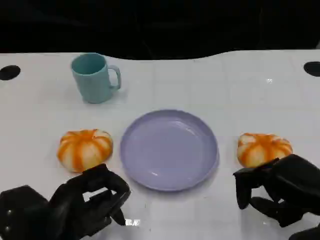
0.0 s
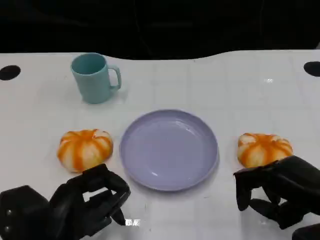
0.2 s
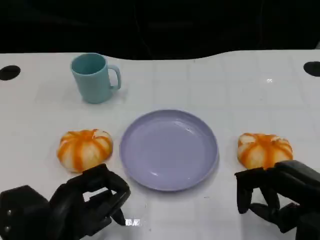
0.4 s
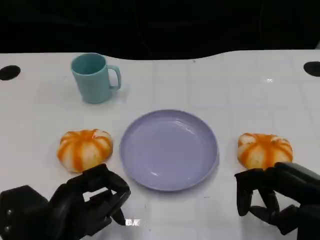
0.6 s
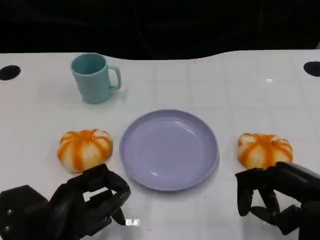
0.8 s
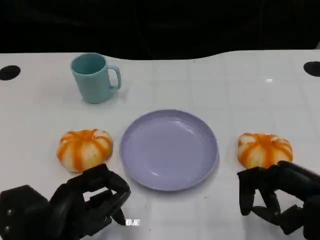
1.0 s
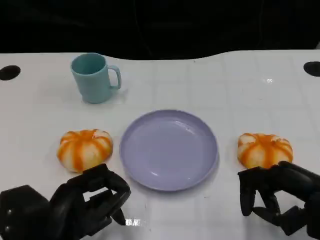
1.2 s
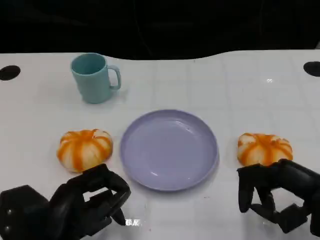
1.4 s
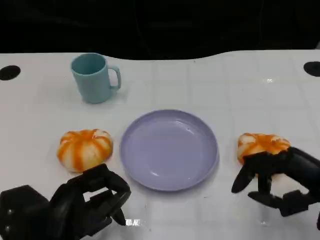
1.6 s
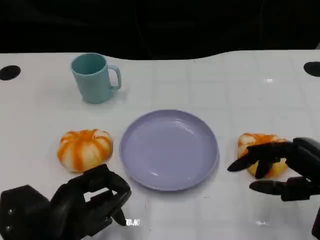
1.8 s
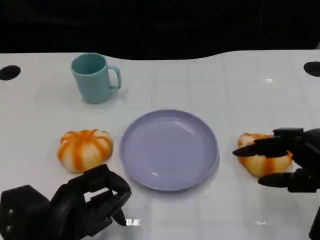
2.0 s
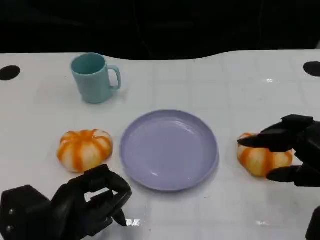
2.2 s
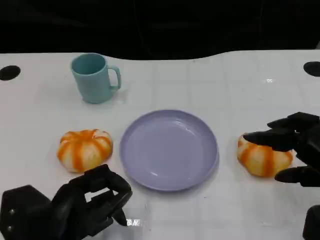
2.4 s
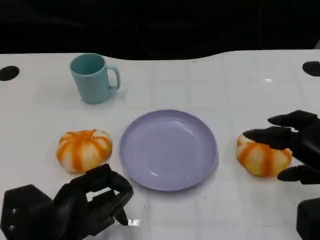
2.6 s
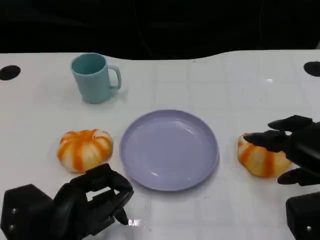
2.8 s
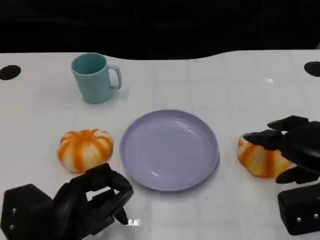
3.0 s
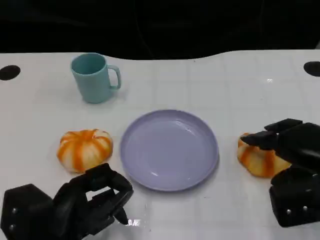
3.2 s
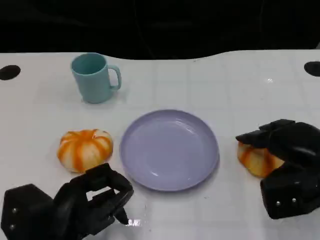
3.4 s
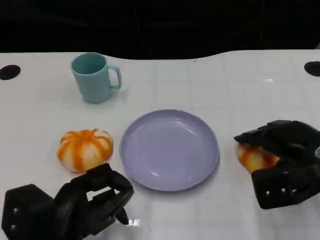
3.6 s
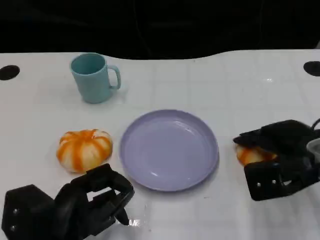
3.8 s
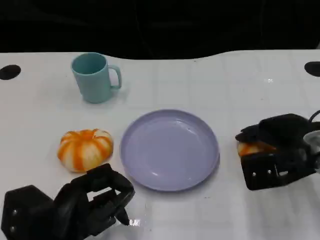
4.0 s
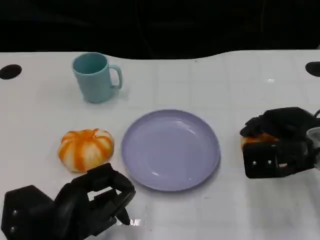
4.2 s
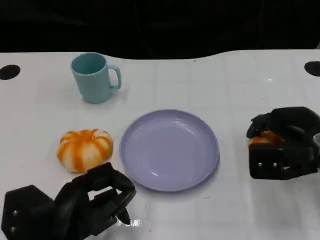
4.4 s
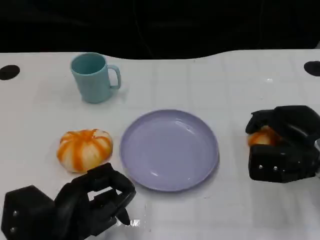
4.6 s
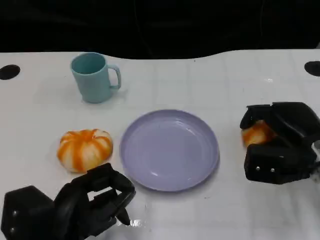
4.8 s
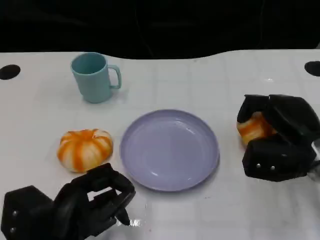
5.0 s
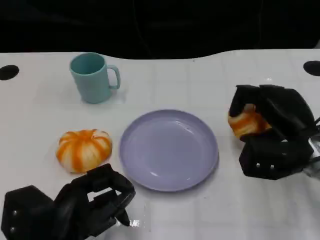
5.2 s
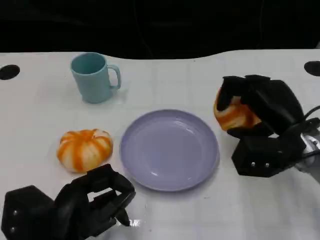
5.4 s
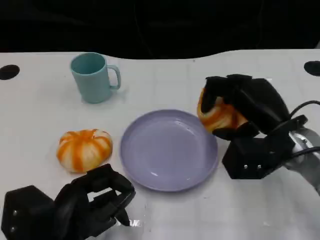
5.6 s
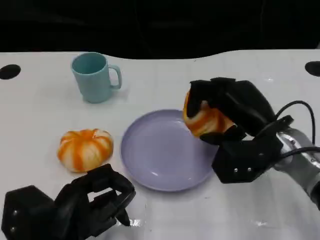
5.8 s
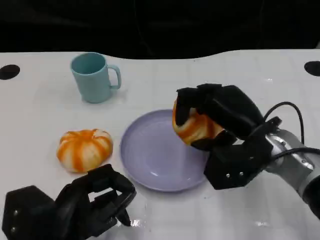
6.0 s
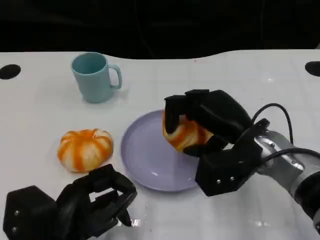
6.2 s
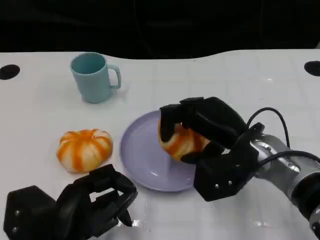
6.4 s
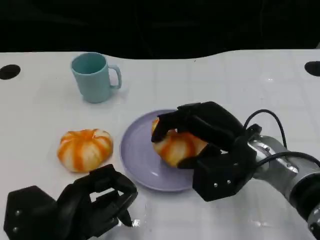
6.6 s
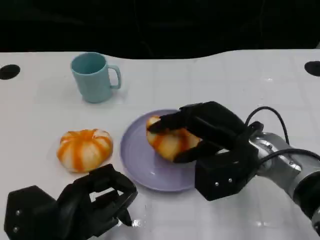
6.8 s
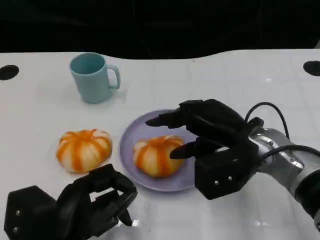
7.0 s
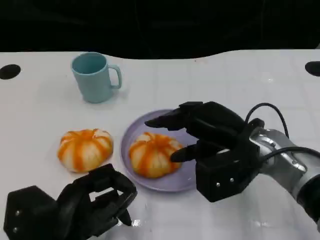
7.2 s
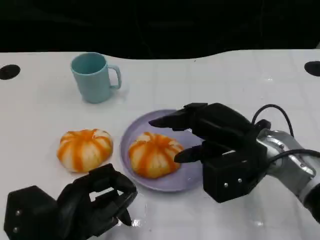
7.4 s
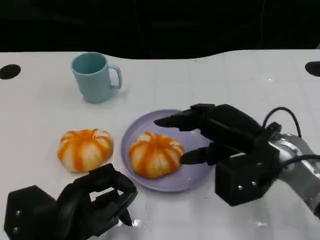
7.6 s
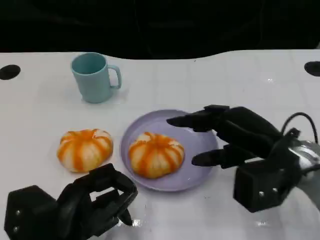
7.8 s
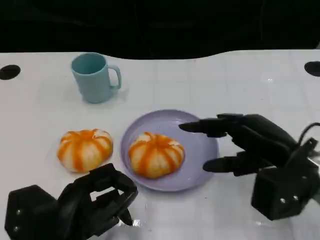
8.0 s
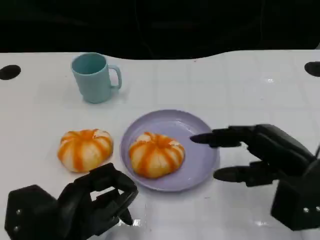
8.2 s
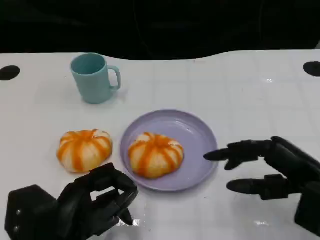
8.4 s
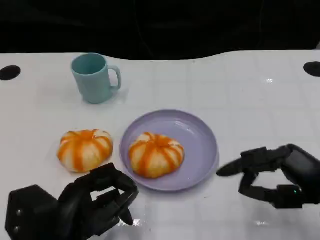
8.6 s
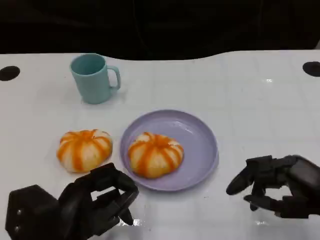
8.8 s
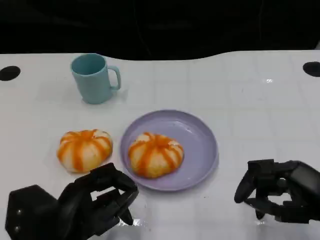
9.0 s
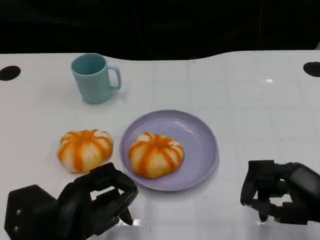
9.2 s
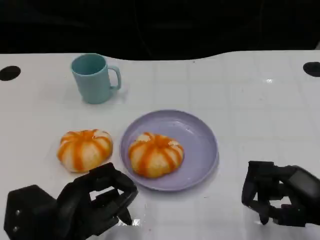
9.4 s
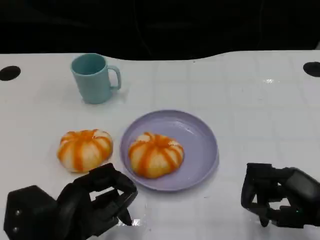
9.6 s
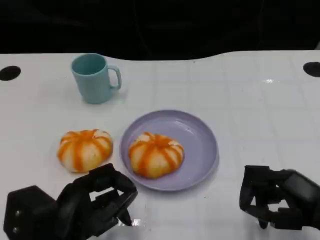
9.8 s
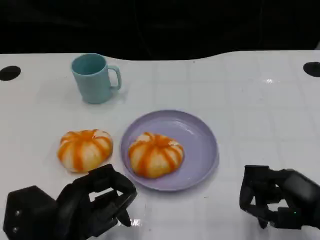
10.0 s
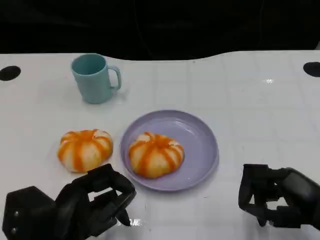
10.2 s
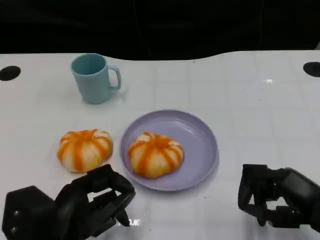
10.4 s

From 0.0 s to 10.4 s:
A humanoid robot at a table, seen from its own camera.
Task of the whole recording: Grasp the bread from the table and place it into the plate.
From 3.0 s to 4.4 s: The right hand goes approximately 5 cm forward.
From 4.4 s to 6.0 s: The right hand goes roughly 10 cm to the left.
From 6.0 s to 7.4 s: There are only small adjustments of the hands.
From 7.4 s to 9.0 s: The right hand heads to the right and backward, covering roughly 15 cm.
From 9.0 s to 10.4 s: The hands move only a little.

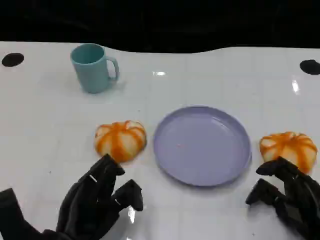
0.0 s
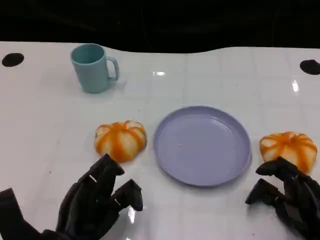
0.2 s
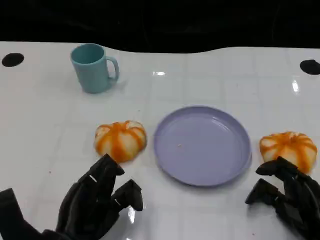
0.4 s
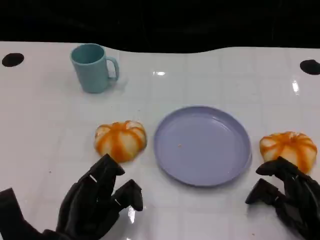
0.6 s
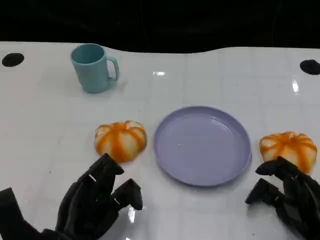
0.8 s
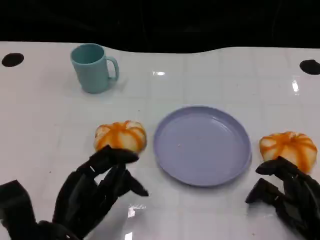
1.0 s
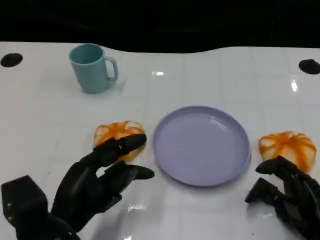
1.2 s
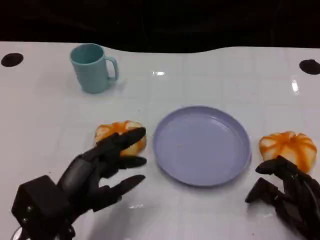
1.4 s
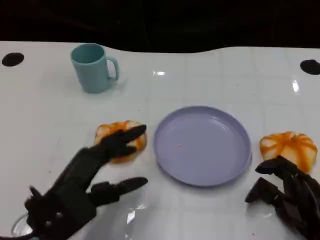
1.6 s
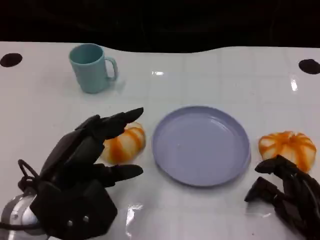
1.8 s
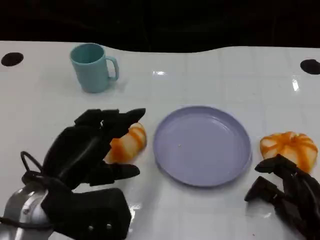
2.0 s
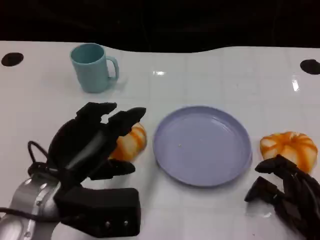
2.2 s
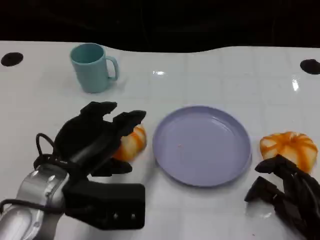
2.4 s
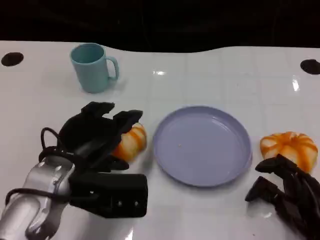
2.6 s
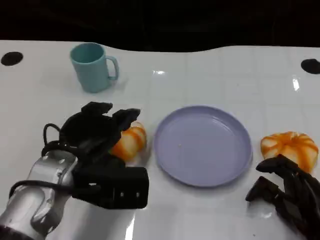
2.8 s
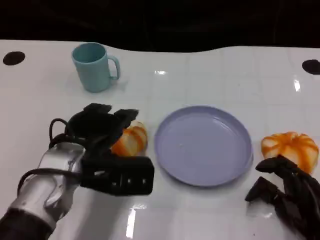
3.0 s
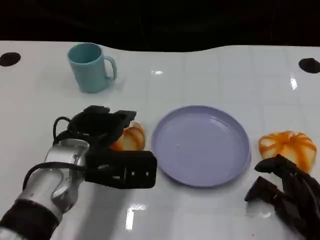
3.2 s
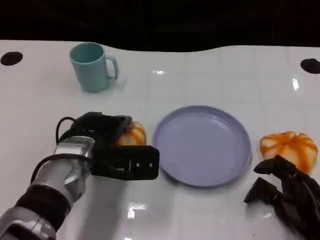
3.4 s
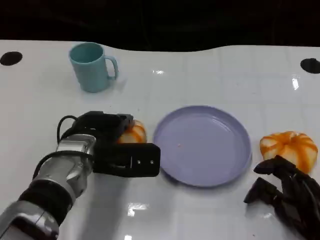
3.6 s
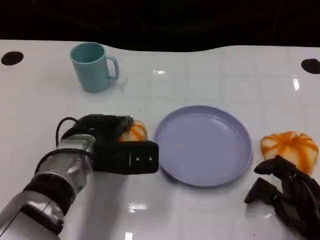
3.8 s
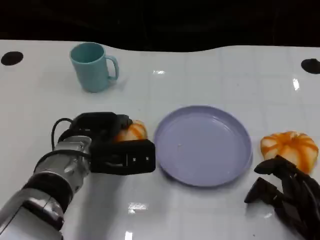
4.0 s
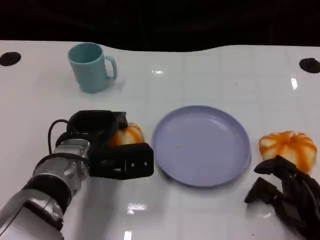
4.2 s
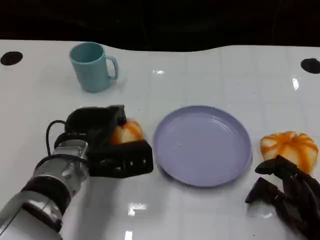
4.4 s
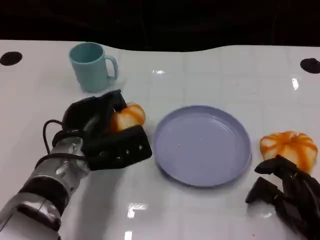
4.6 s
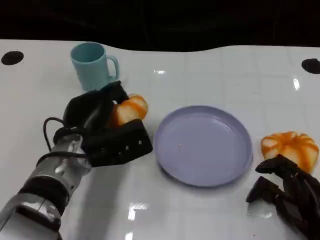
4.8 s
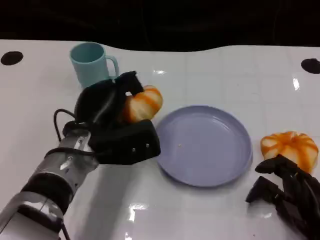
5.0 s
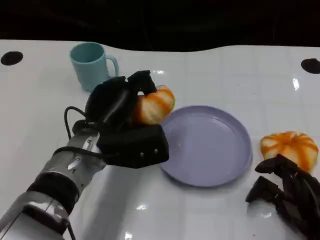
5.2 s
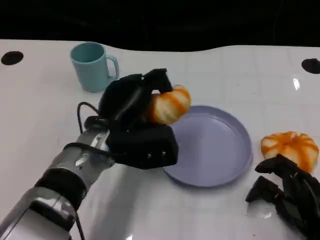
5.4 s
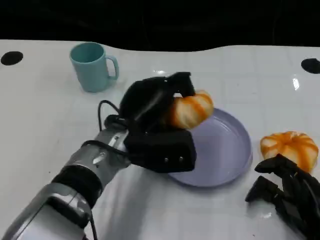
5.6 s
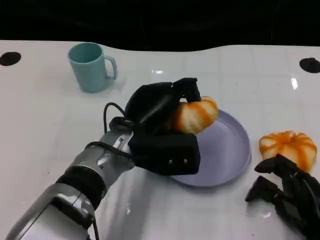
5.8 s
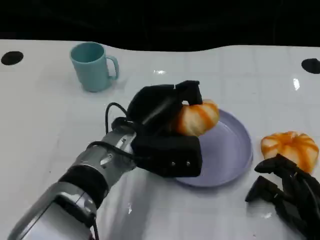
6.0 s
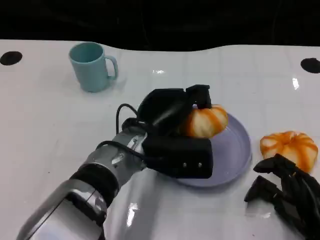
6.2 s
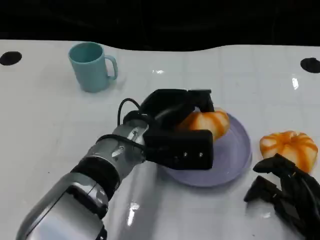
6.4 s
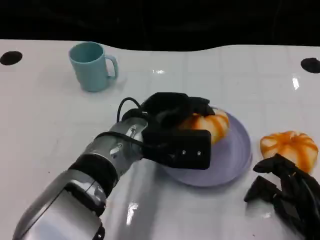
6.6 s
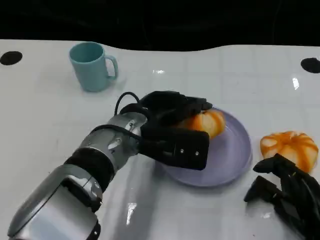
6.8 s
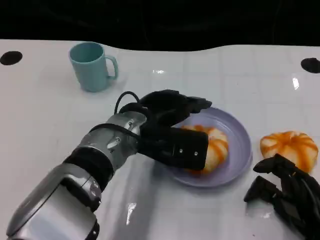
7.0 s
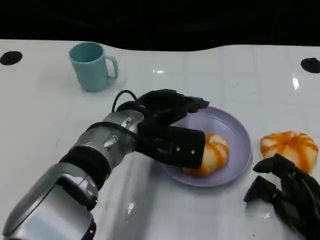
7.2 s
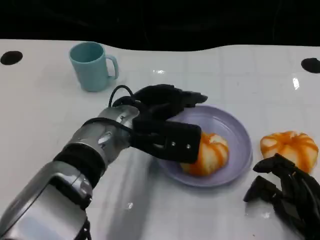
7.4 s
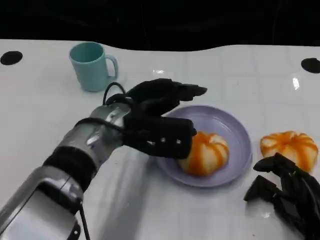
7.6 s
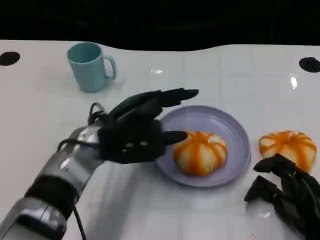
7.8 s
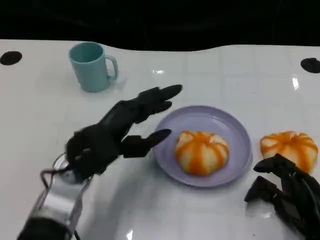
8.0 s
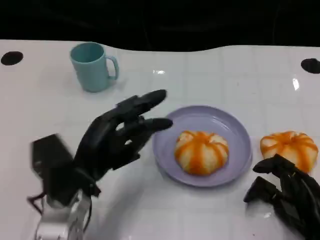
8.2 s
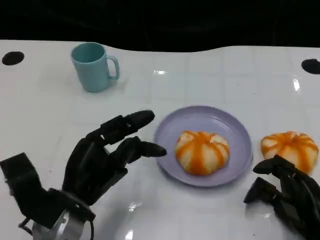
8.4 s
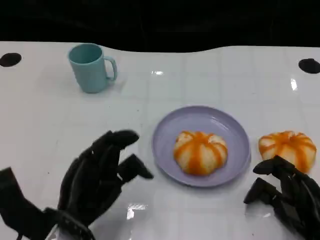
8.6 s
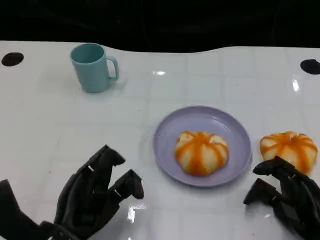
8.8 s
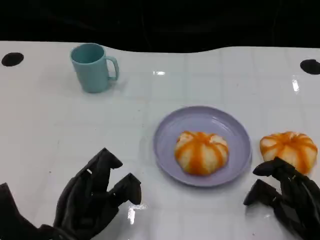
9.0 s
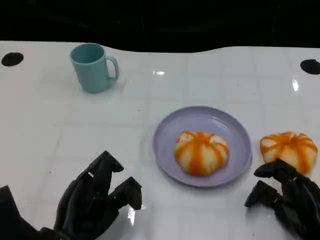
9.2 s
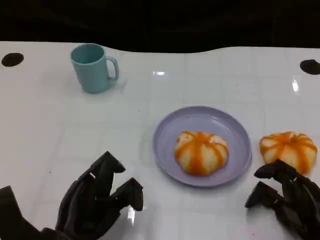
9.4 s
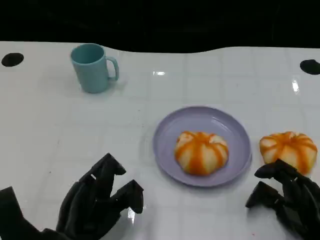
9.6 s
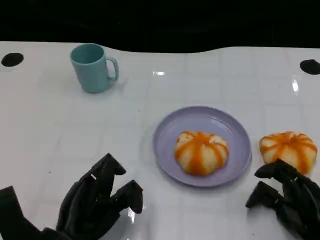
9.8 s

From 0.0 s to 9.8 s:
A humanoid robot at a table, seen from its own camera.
Task of the whole recording: Grasp the bread from the table and place it into the plate.
From 0.0 s to 1.4 s: The left hand travels upward by some 5 cm.
From 1.4 s to 2.8 s: The left hand heads forward, covering approximately 10 cm.
From 2.8 s to 4.2 s: The left hand moves about 5 cm.
From 4.2 s to 5.6 s: The left hand is displaced to the right by roughly 5 cm.
From 7.0 s to 8.4 s: The left hand is displaced to the left, backward and downward by some 15 cm.
From 8.4 s to 9.8 s: The left hand changes place by some 5 cm.

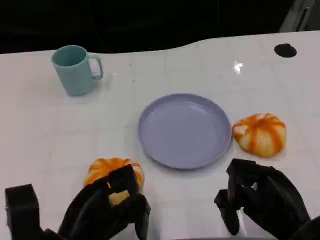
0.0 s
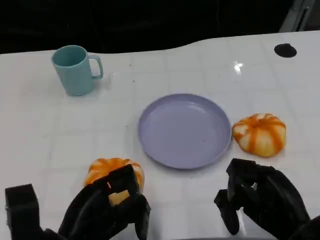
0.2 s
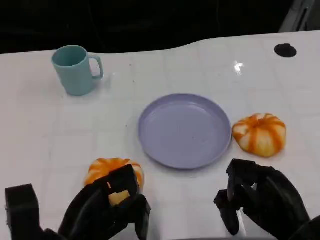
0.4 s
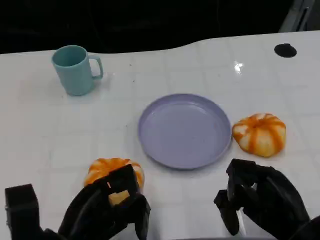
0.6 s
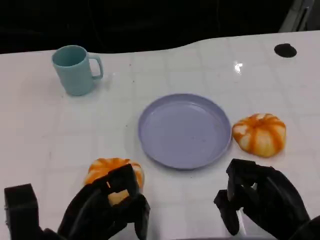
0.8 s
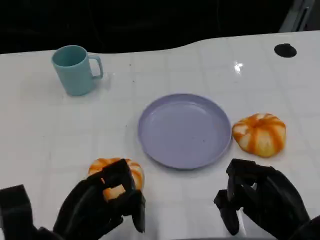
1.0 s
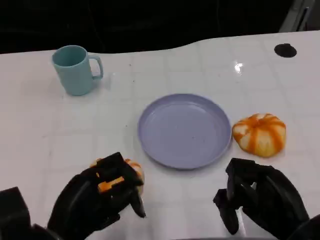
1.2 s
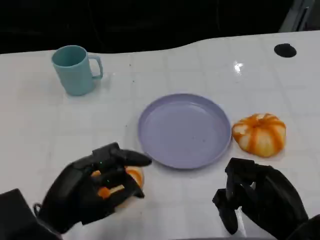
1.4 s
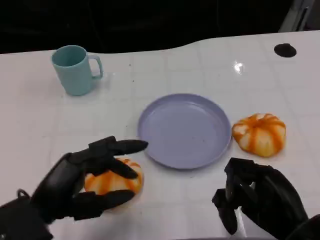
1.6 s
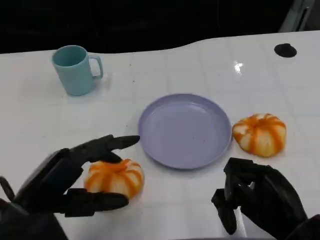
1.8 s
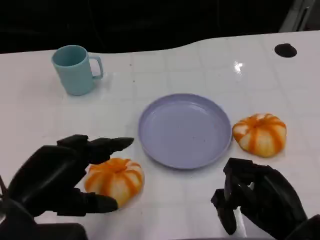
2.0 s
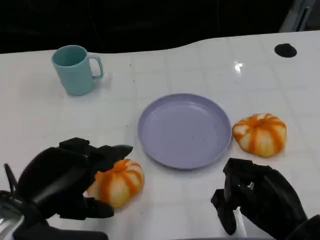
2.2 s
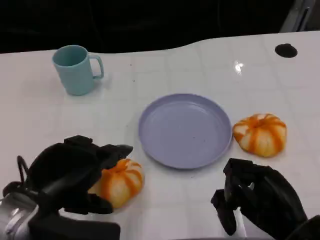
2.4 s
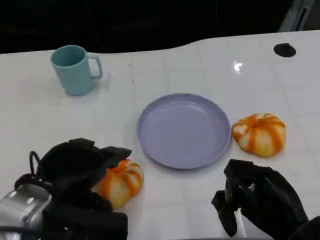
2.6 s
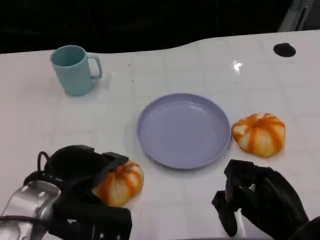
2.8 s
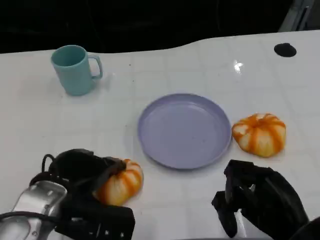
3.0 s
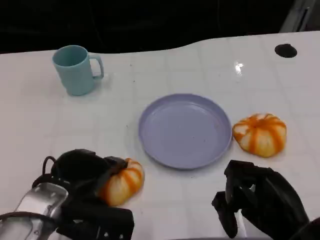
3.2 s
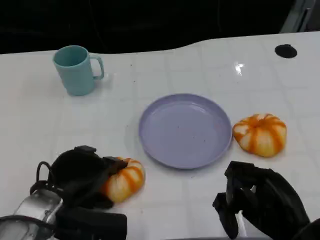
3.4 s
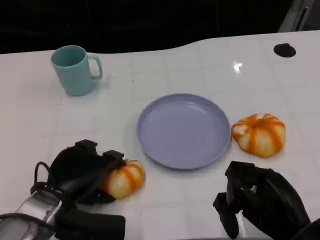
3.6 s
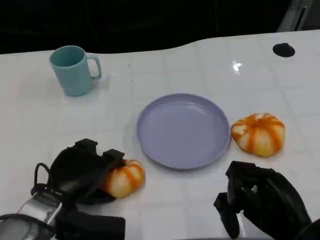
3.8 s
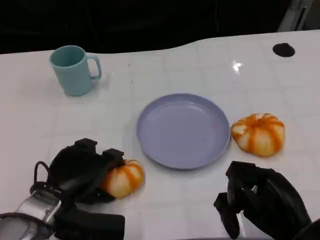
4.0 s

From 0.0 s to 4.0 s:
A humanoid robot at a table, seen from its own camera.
Task of the whole recording: Grasp the bread from the table and place it into the plate.
From 2.6 s to 4.0 s: The left hand goes some 5 cm downward.
